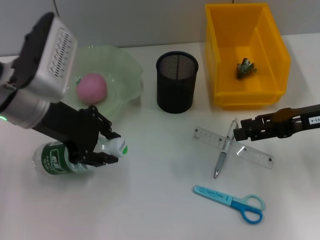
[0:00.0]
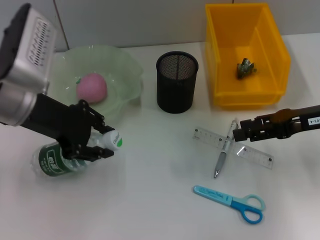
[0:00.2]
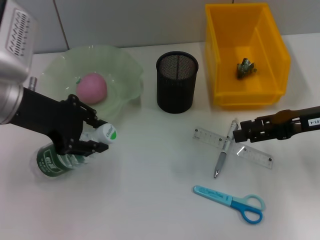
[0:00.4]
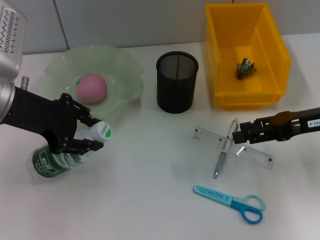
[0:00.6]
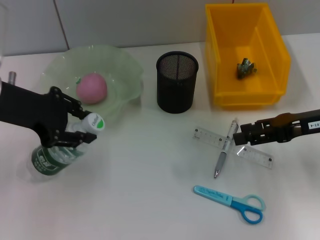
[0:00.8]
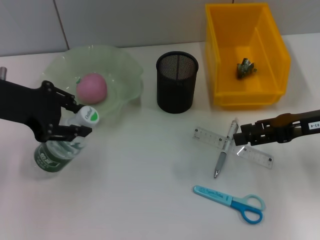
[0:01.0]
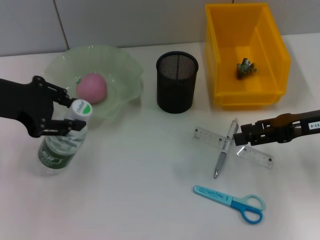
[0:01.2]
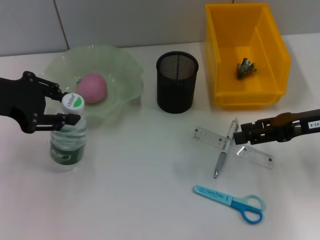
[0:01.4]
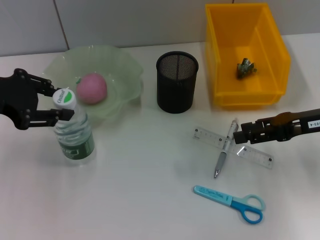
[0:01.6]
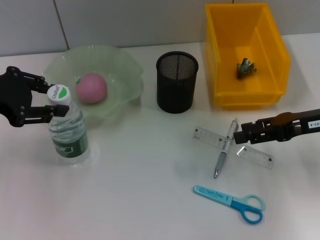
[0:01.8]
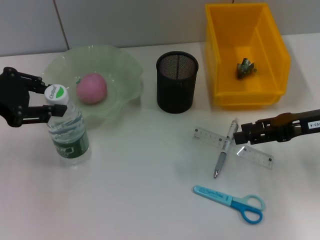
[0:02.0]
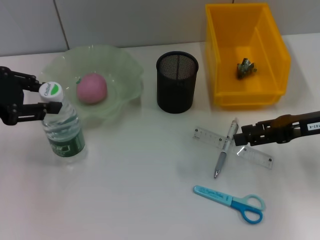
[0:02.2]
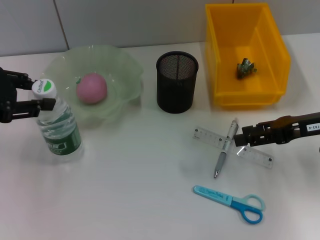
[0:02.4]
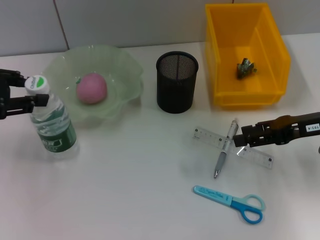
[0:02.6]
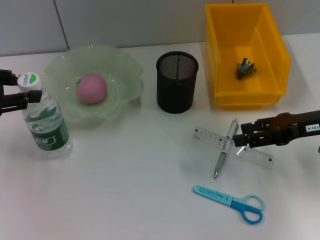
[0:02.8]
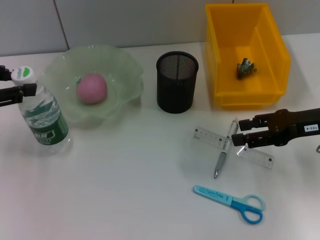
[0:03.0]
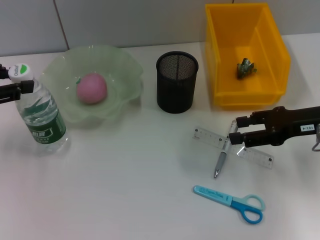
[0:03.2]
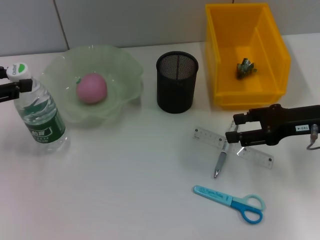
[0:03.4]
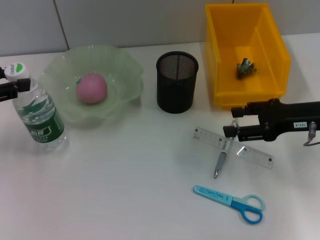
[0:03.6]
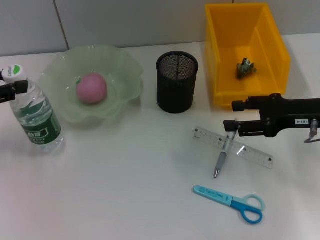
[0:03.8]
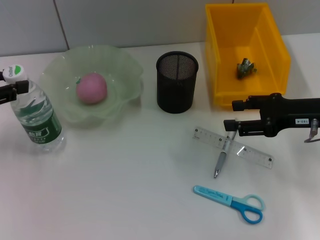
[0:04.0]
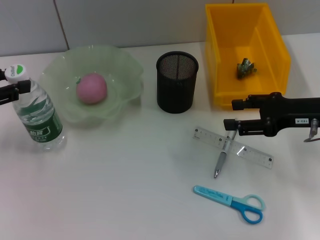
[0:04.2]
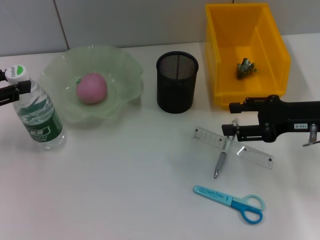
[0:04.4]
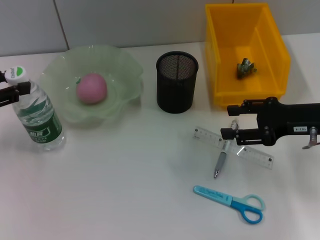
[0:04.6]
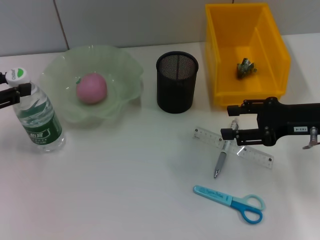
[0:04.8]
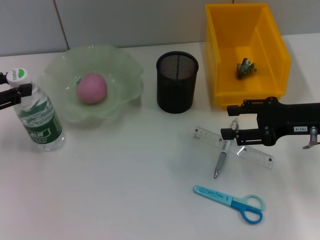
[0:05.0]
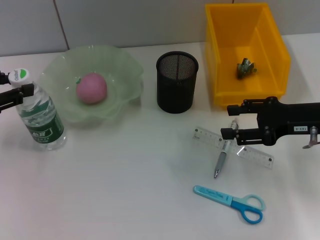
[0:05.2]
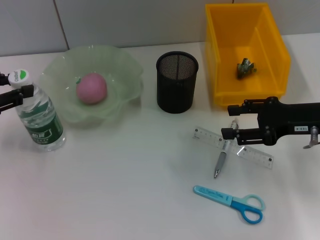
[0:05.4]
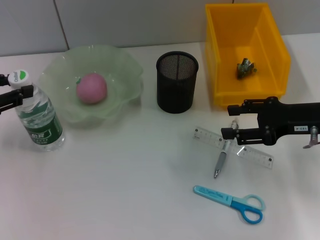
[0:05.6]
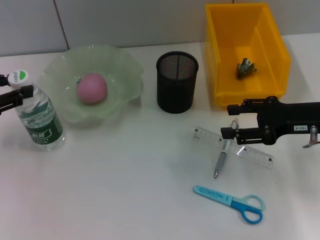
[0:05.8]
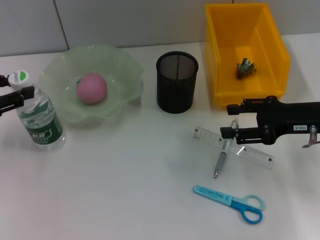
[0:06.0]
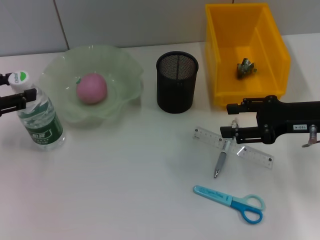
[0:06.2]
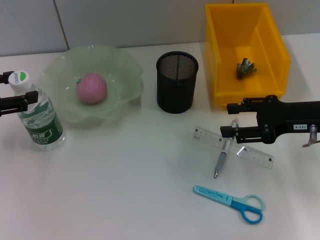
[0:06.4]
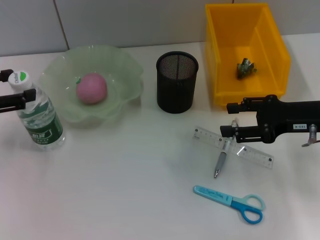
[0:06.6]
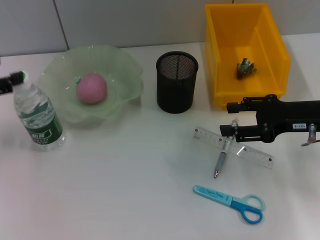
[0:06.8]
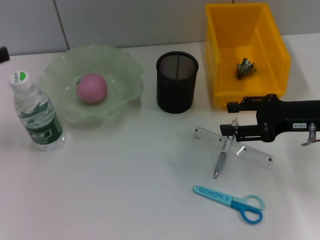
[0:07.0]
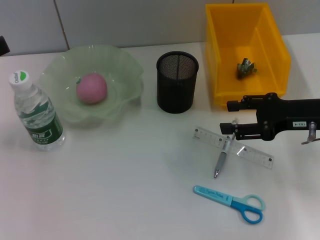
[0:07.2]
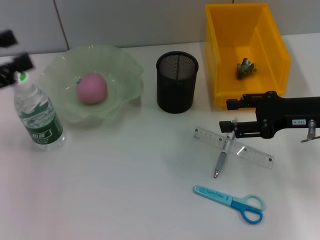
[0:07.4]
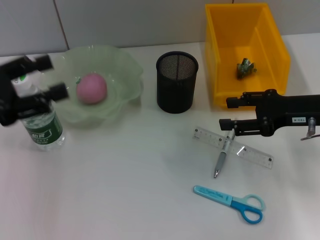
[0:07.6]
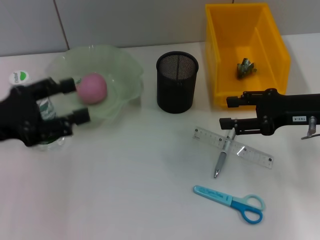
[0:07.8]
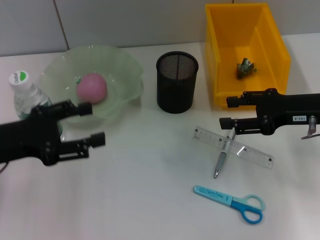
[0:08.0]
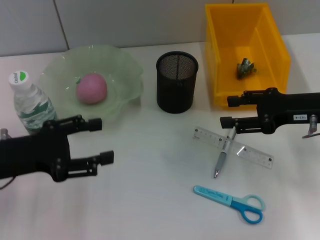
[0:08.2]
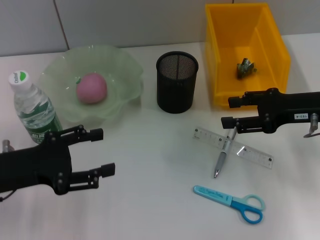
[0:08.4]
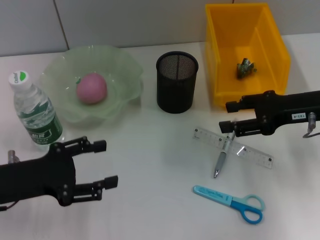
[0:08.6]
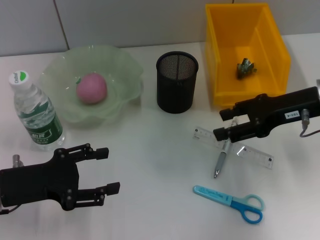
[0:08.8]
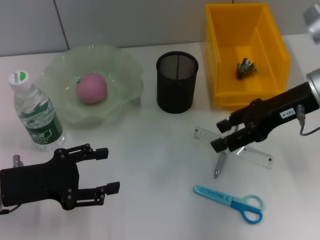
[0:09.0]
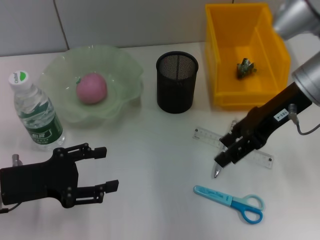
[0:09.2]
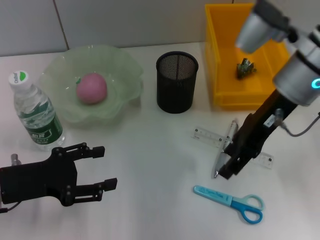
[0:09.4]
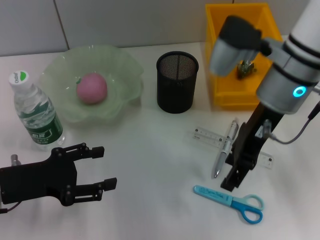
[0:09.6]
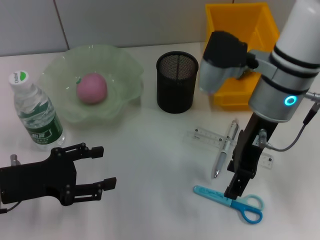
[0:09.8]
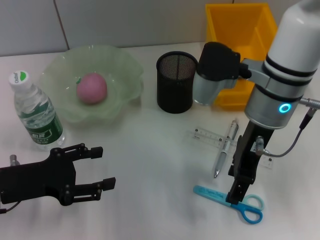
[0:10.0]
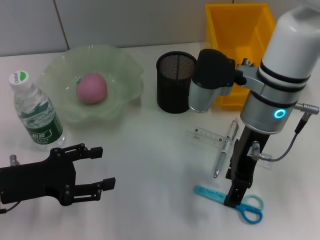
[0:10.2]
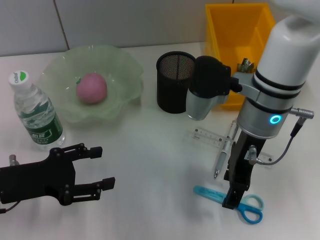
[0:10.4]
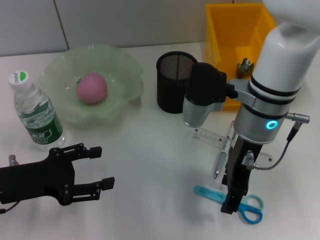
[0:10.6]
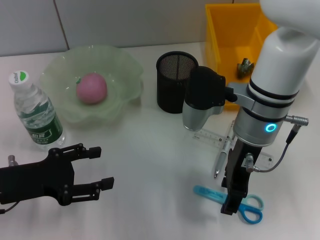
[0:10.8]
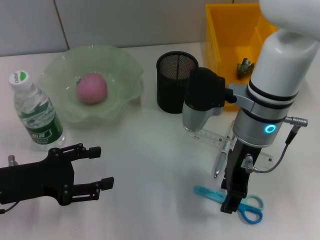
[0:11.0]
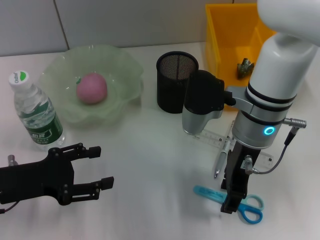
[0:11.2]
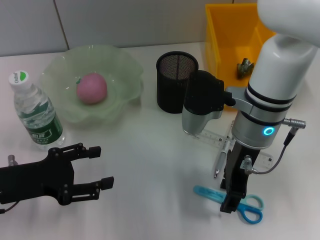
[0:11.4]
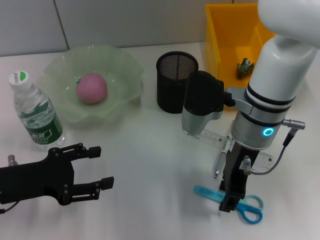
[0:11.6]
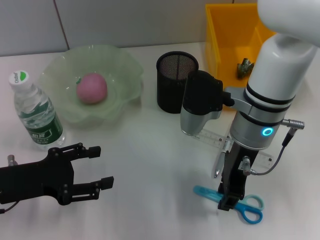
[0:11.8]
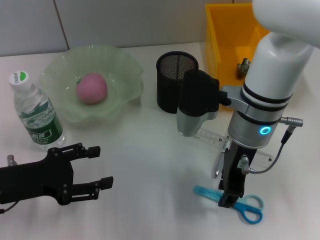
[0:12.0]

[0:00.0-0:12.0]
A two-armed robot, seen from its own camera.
Step, 0:00.0 to 0:06.2: Place the water bottle on the table with the left hand.
0:00.0 to 0:01.6: The left gripper heads to the left, covering approximately 10 cm.
0:01.6 to 0:03.0: The left gripper shifts some 5 cm to the left.
0:03.0 to 0:06.0: The grippers make only small movements.
0:07.6 to 0:09.0: The left gripper heads downward, covering approximately 10 cm, while the right gripper is displaced upward by roughly 5 cm.
0:09.0 to 0:10.4: The right gripper shifts approximately 10 cm to the left.
0:10.4 to 0:12.0: The right gripper closes.

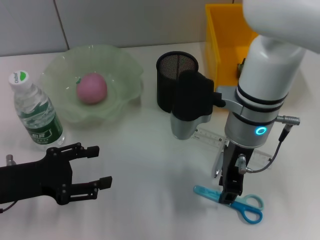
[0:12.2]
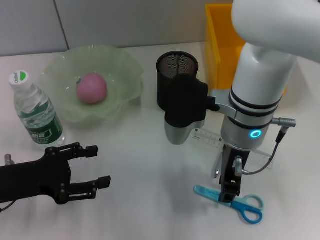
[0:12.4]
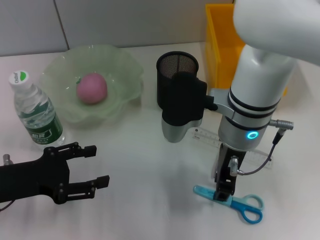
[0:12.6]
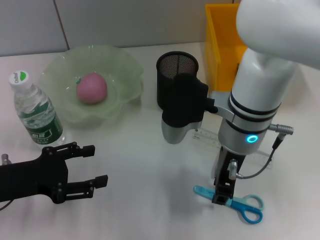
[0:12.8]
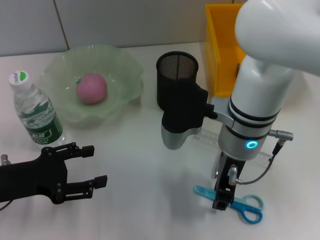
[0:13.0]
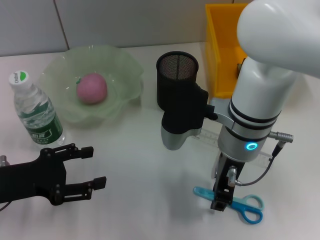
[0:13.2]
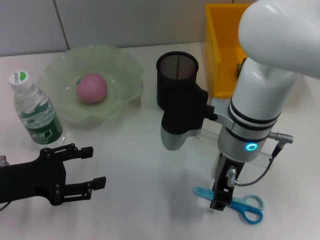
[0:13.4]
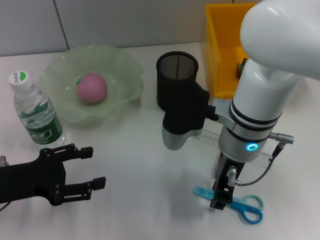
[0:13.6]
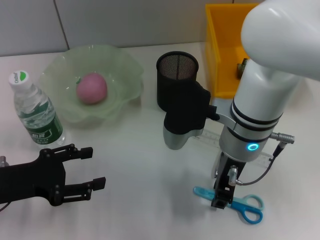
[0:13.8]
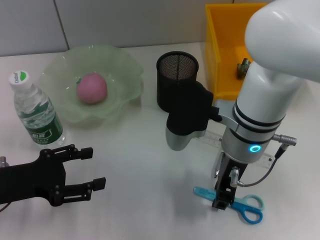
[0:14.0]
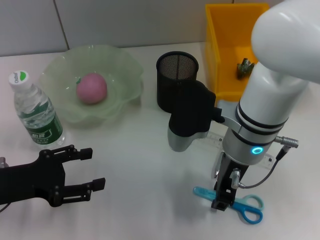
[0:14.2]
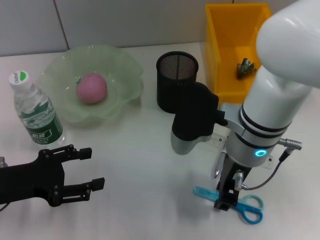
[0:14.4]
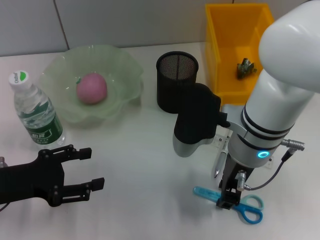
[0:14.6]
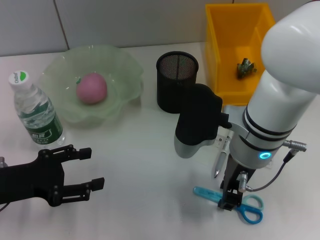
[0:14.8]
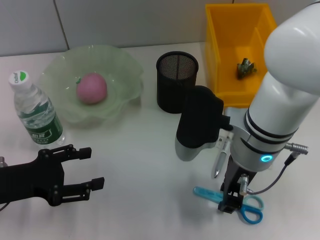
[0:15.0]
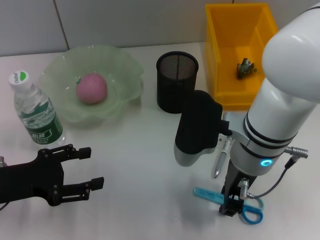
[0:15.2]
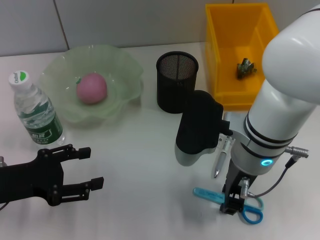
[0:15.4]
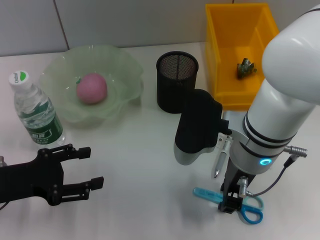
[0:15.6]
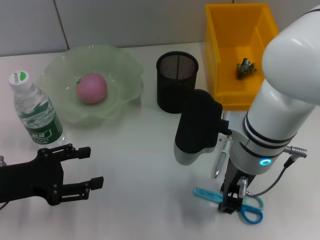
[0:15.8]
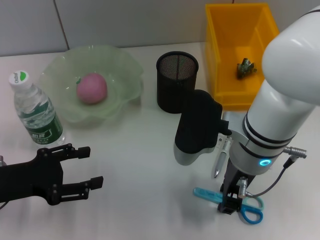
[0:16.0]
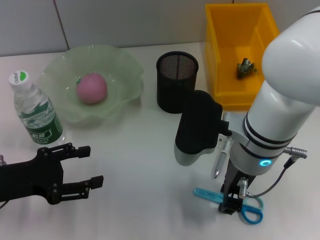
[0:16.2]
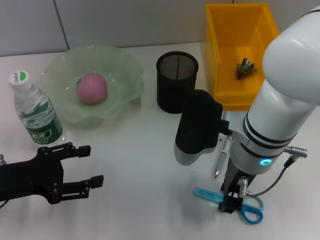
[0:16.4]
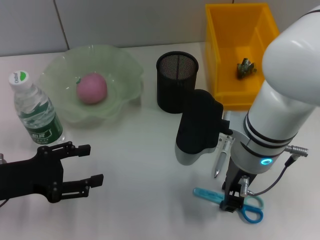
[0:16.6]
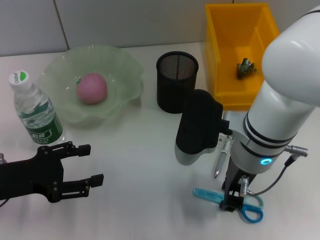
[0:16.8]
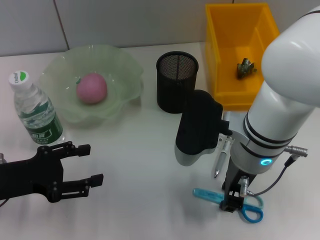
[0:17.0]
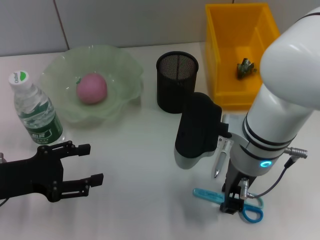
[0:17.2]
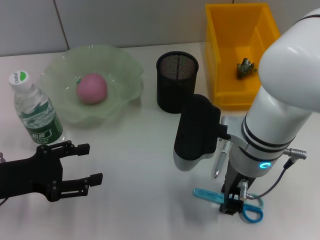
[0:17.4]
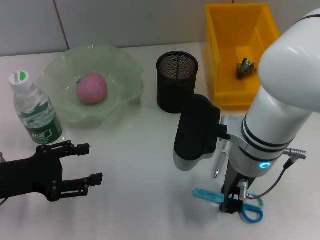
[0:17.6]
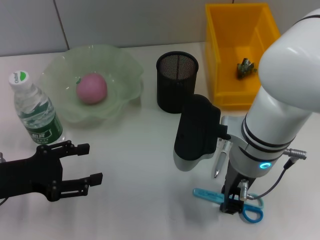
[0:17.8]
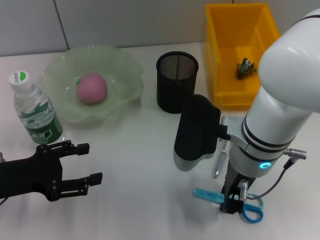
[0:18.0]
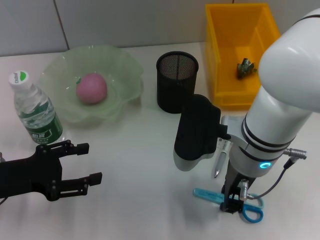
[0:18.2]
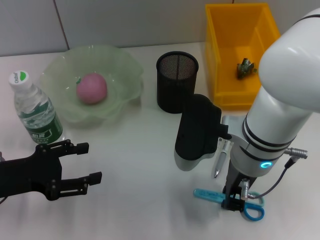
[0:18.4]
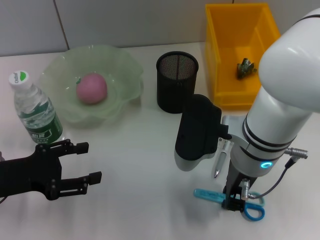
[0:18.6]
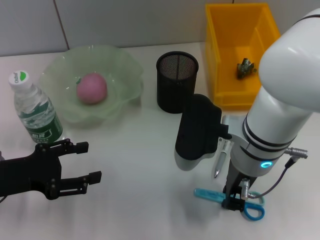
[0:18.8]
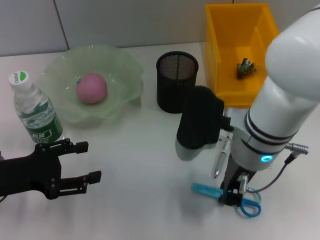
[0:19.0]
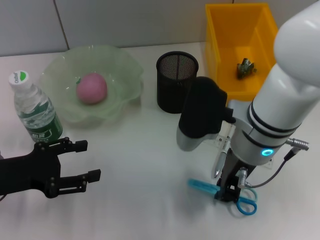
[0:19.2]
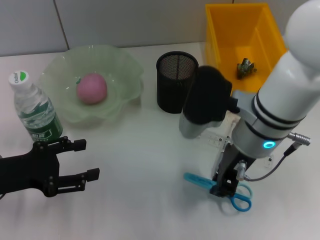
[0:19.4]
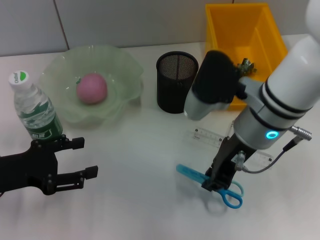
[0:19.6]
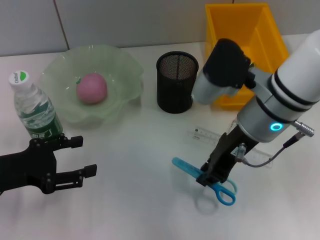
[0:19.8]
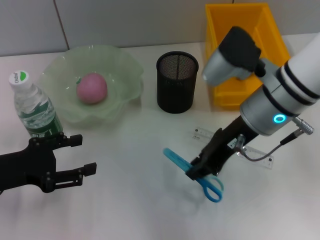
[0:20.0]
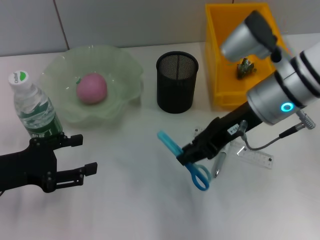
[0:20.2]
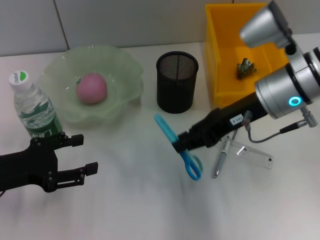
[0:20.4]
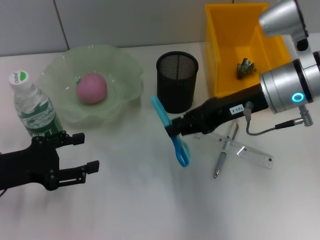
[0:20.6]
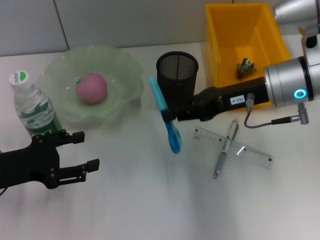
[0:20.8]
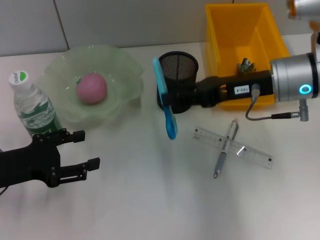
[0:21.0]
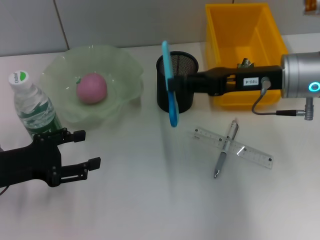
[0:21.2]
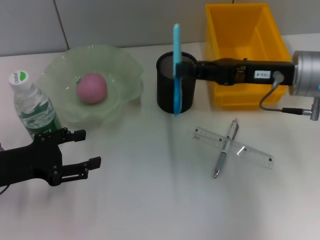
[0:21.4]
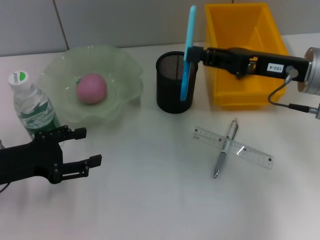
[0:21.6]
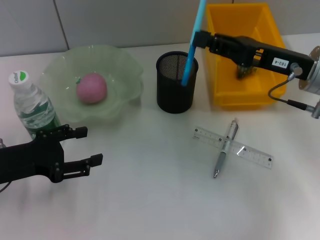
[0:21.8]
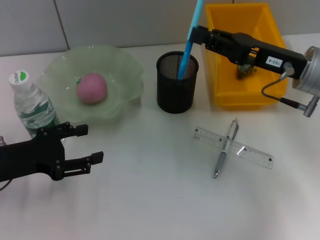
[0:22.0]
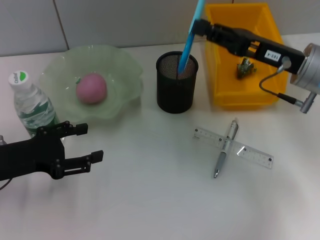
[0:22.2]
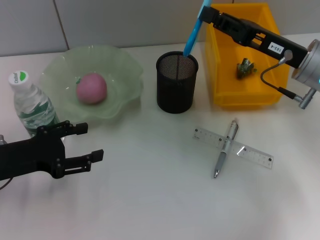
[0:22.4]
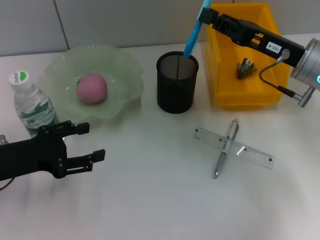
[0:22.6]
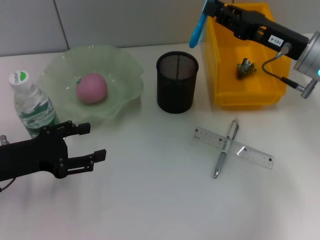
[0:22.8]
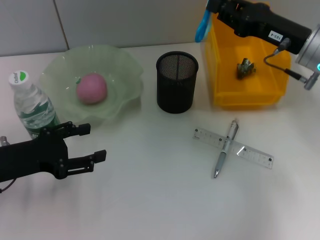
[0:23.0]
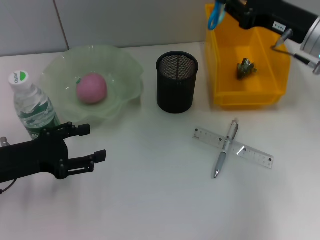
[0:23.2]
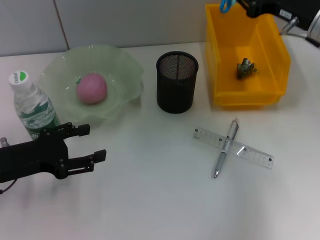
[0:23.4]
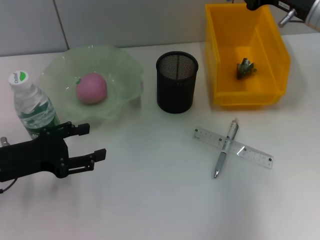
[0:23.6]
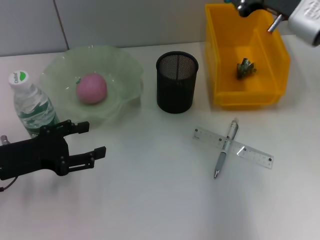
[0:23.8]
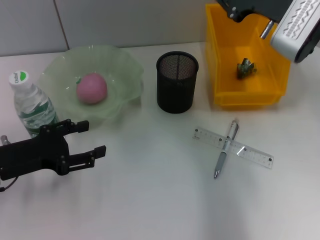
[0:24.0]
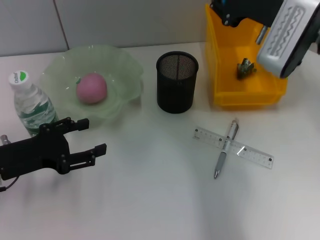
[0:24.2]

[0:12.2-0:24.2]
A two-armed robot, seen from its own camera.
Step, 0:12.2 to 0:18.6: Grab the blue scissors with the right hand.
0:12.2 to 0:15.2: The grippers make only small movements.
0:15.2 to 0:18.2: The two grippers keep their place.
0:18.2 to 0:19.8: The right gripper changes place by some 5 cm.
0:19.8 to 0:21.2: The right gripper heads to the right, covering roughly 10 cm.
0:22.6 to 0:24.2: The right gripper ends up some 5 cm from where it was.
